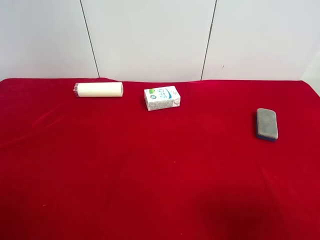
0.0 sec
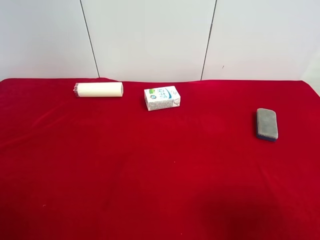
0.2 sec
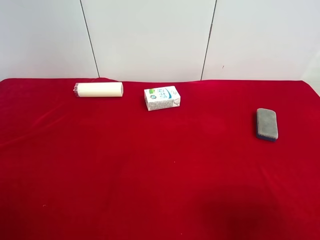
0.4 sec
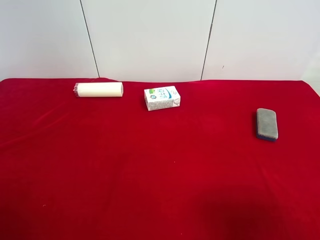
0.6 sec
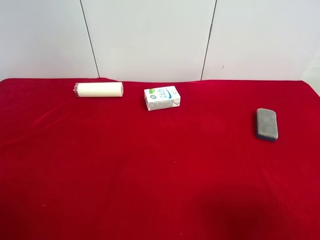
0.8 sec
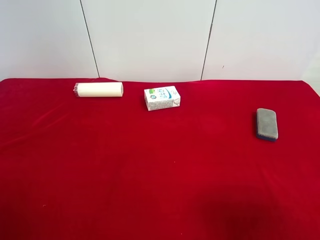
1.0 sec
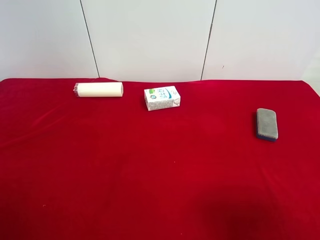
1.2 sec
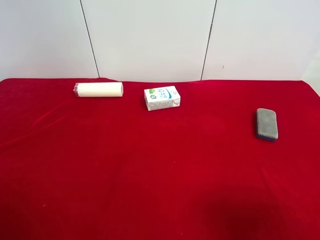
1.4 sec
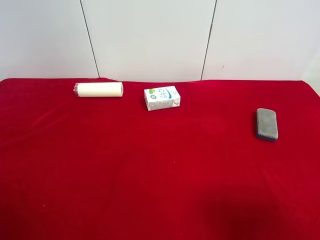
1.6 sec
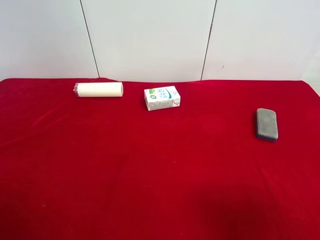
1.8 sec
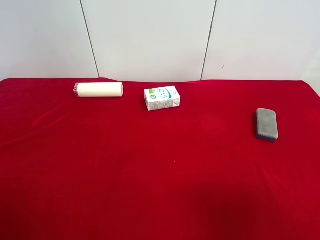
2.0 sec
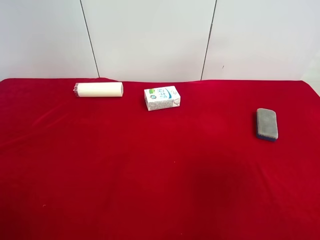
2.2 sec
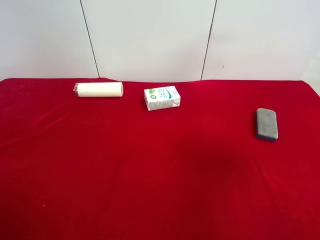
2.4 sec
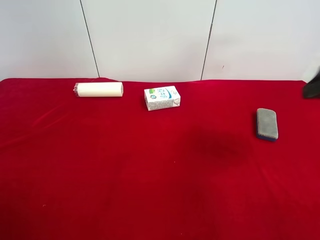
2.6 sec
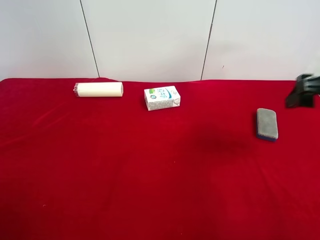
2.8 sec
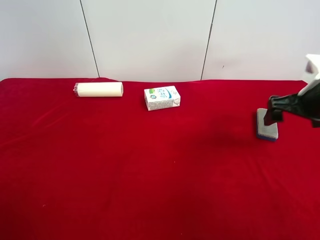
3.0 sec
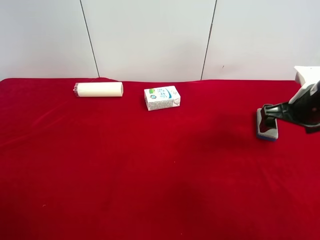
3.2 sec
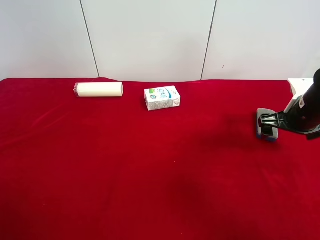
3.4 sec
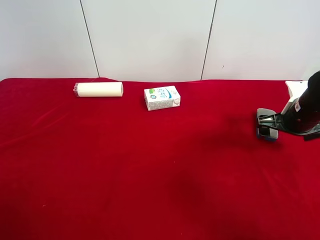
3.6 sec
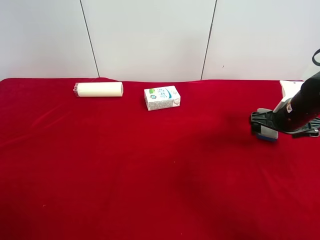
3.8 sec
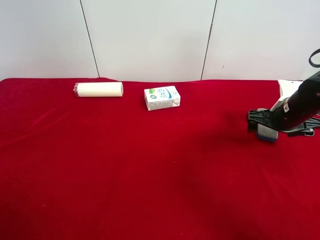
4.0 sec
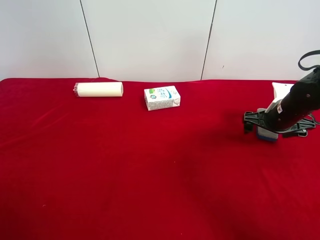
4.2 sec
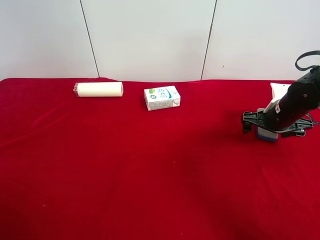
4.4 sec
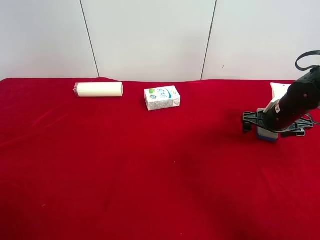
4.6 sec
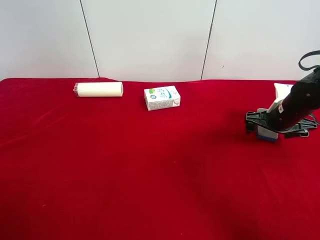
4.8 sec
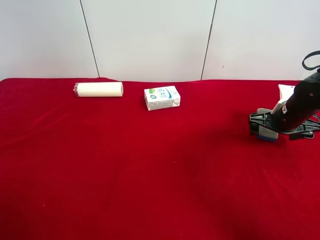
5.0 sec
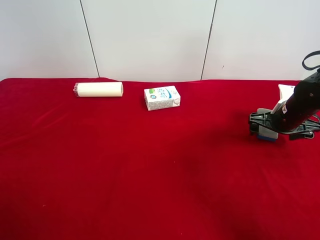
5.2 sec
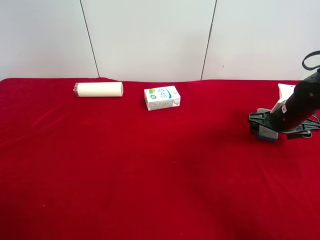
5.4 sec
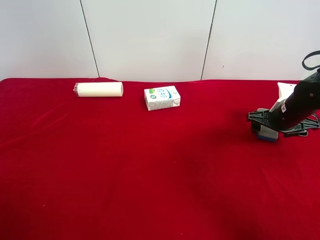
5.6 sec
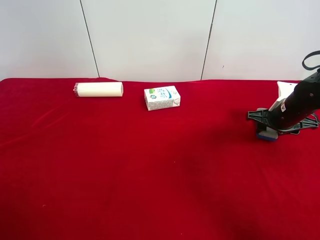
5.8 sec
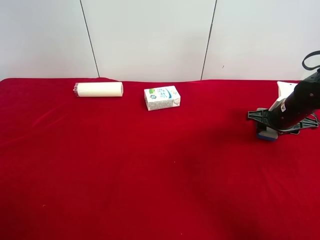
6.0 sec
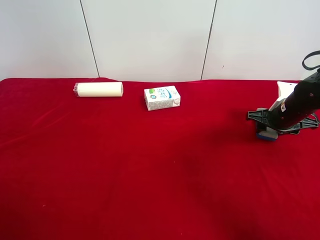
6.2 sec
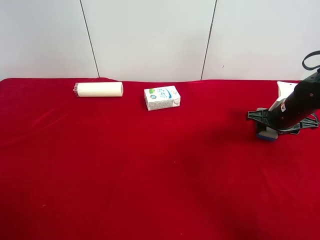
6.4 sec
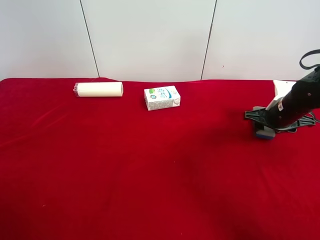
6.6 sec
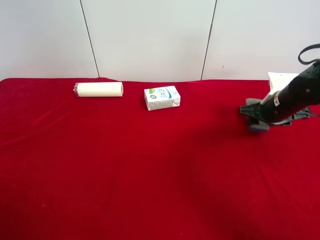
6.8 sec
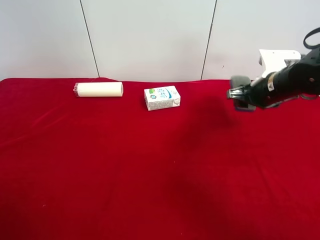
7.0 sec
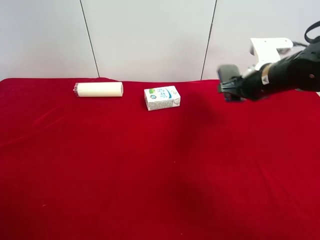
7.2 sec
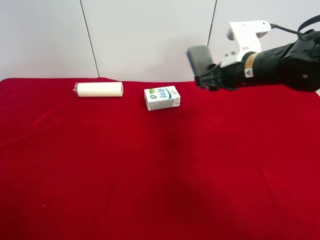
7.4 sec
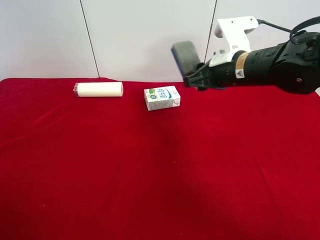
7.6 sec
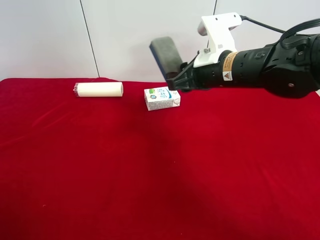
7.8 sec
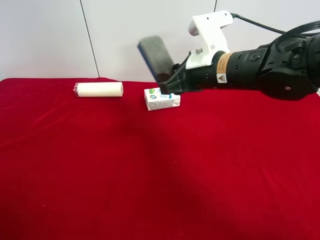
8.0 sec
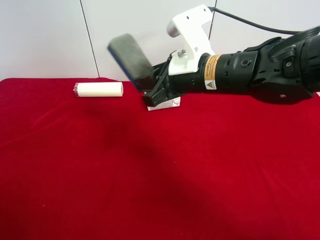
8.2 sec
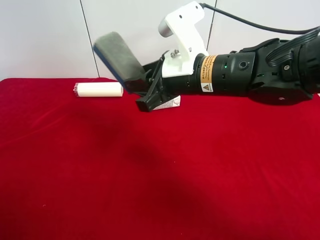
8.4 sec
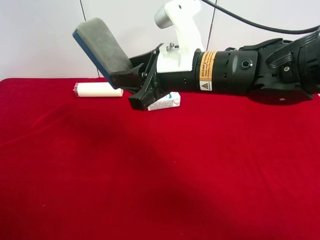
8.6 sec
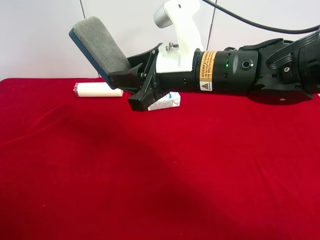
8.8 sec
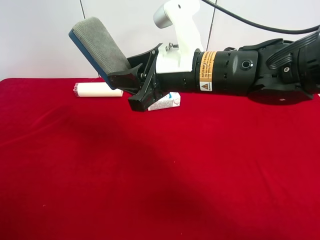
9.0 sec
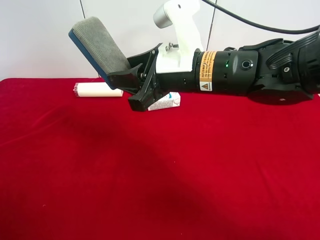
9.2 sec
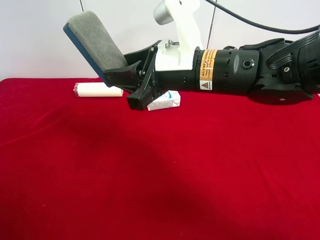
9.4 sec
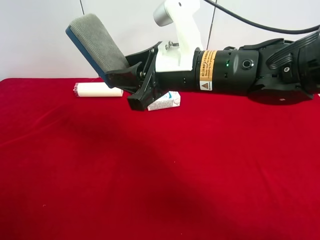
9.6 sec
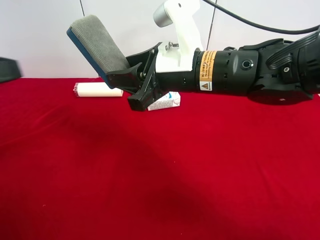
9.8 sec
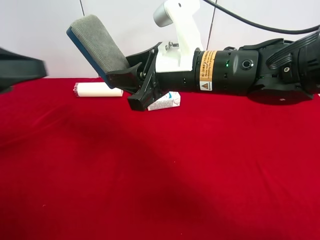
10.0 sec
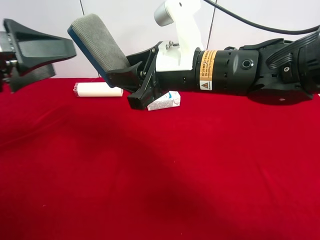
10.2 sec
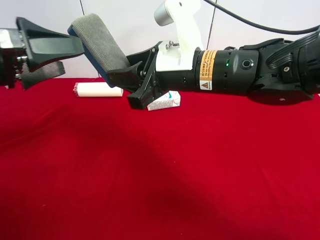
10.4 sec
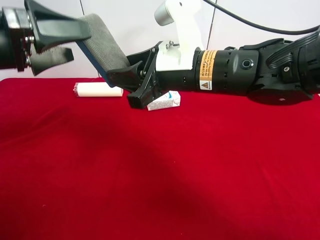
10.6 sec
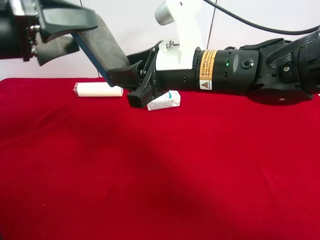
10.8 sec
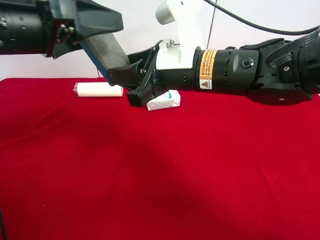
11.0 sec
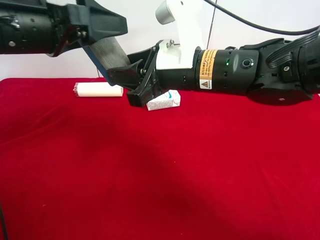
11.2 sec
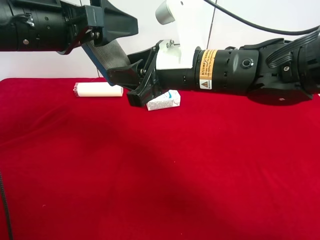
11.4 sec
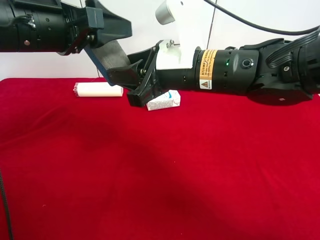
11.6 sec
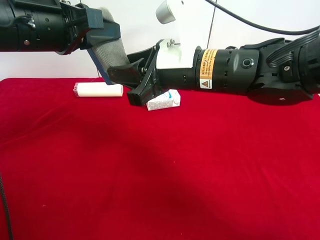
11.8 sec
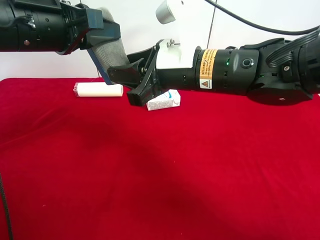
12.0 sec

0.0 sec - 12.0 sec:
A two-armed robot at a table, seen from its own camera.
Task of the whole recording: use the right gripper to pick up the item and transfer it from the right gripper to the left gripper.
Step, 0.0 sec - 5.8 sec: Use the right gripper to grab the blue blackboard erasure on the right side of the table.
0.0 sec - 1.6 sec: Neither gripper changes place.
1.6 sec - 3.0 sec: The right gripper travels forward by roughly 25 cm.
3.0 sec - 4.4 sec: The right gripper travels downward and forward by some 10 cm.
4.4 sec - 6.0 sec: The right gripper closes its fingers.
6.0 sec - 7.6 sec: The right gripper is displaced to the left and upward by approximately 20 cm.
7.6 sec - 9.0 sec: The right gripper is displaced to the left and backward by some 10 cm.
9.0 sec - 10.4 sec: The left gripper moves forward, about 20 cm.
10.4 sec - 12.0 sec: The left gripper travels to the right by roughly 5 cm, and closes its fingers.

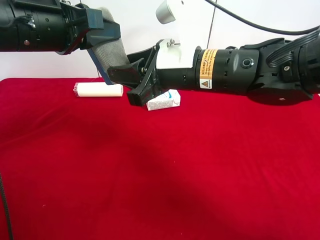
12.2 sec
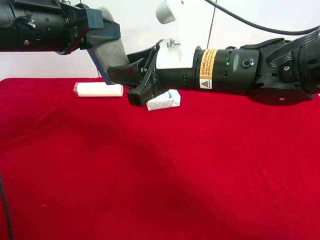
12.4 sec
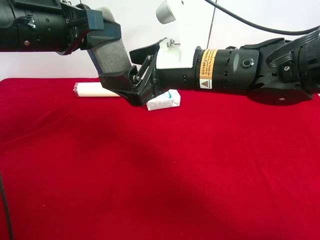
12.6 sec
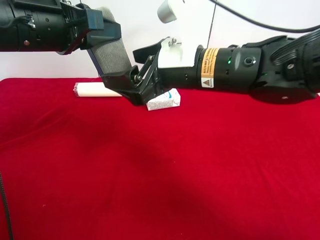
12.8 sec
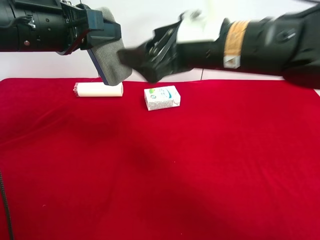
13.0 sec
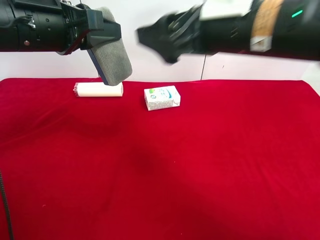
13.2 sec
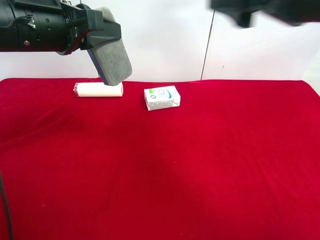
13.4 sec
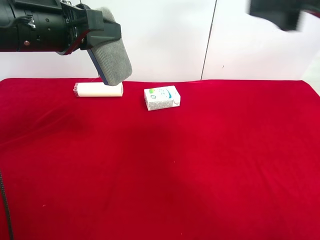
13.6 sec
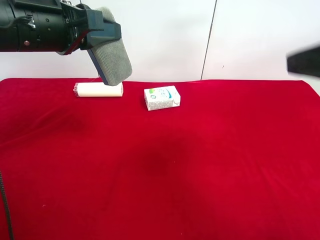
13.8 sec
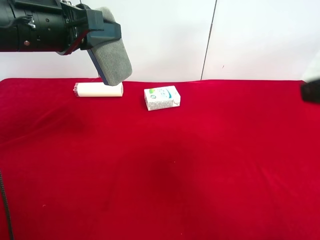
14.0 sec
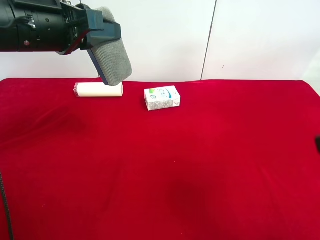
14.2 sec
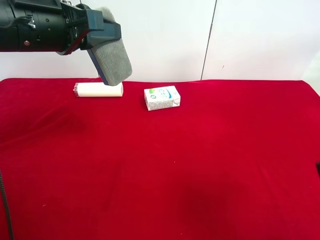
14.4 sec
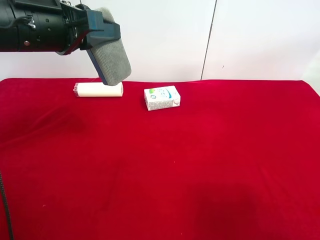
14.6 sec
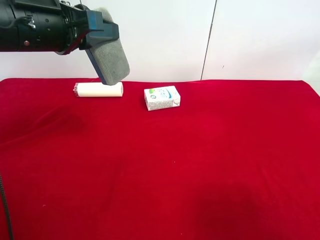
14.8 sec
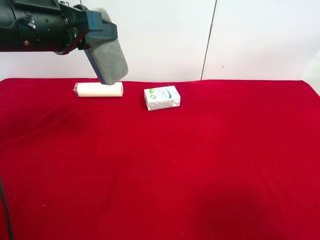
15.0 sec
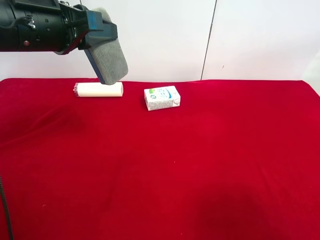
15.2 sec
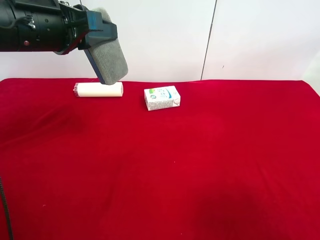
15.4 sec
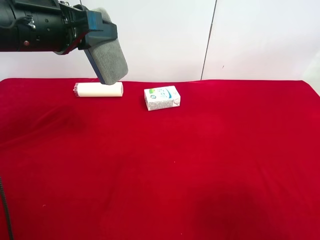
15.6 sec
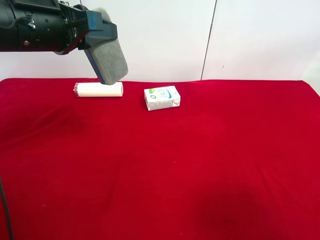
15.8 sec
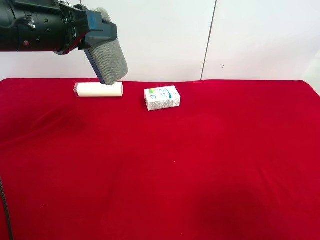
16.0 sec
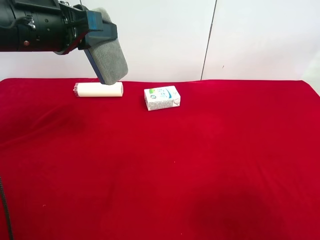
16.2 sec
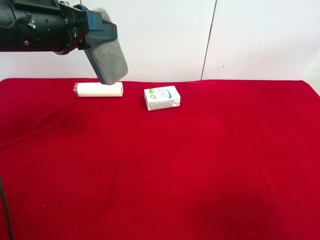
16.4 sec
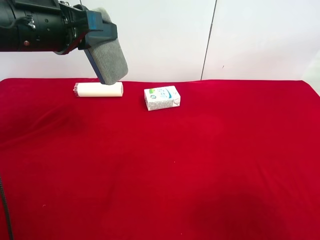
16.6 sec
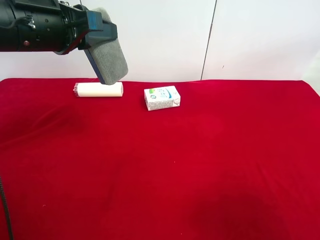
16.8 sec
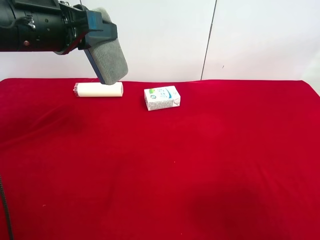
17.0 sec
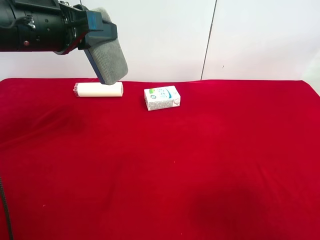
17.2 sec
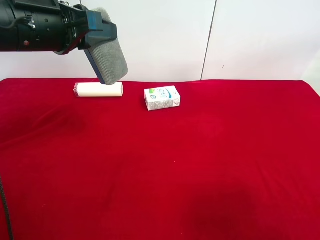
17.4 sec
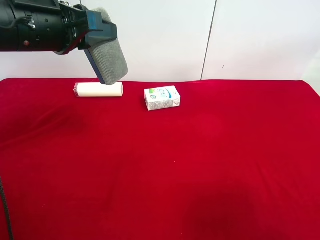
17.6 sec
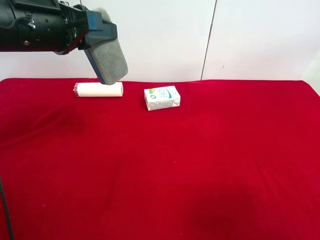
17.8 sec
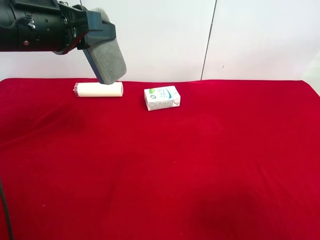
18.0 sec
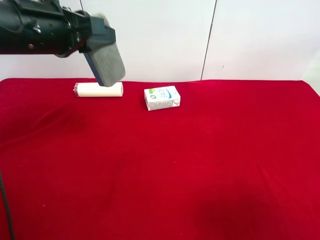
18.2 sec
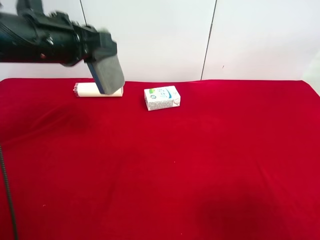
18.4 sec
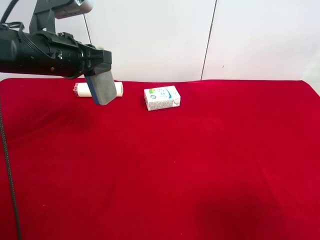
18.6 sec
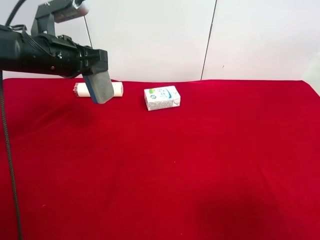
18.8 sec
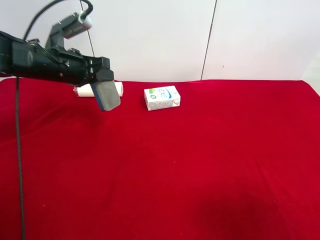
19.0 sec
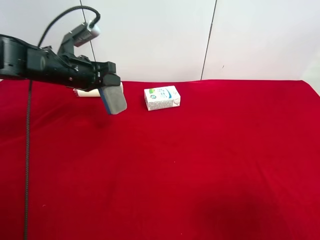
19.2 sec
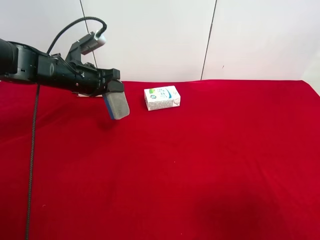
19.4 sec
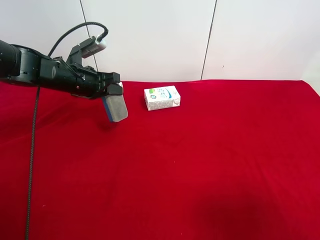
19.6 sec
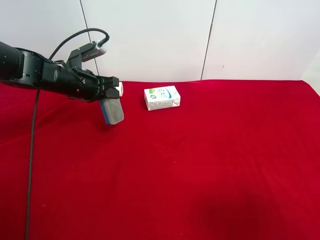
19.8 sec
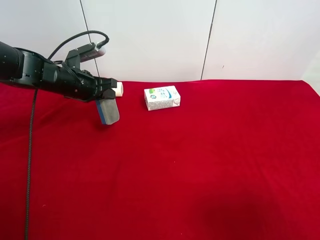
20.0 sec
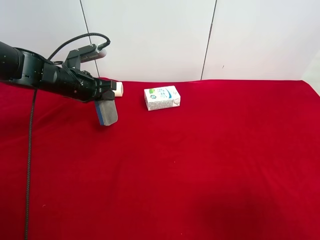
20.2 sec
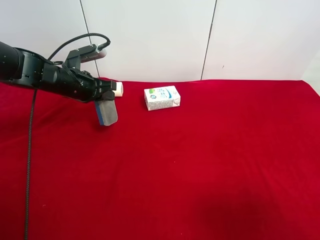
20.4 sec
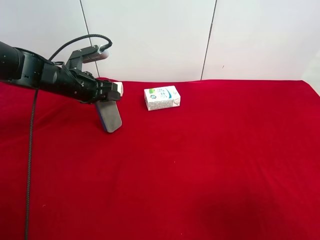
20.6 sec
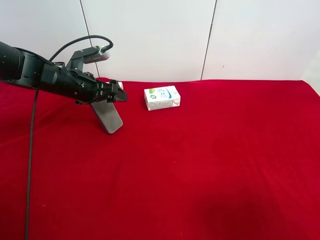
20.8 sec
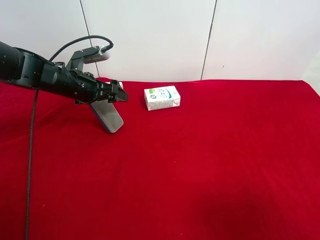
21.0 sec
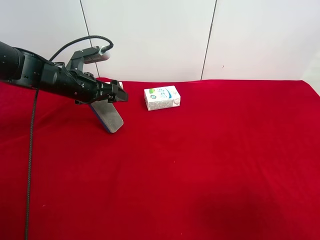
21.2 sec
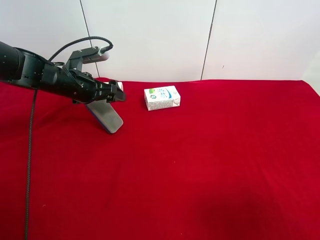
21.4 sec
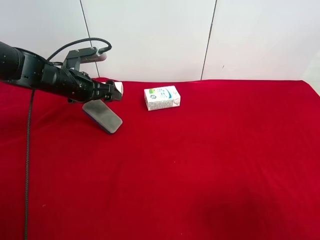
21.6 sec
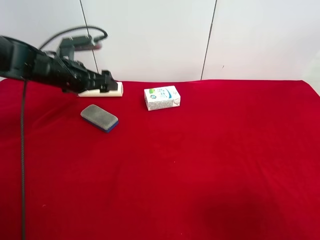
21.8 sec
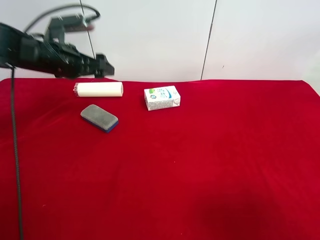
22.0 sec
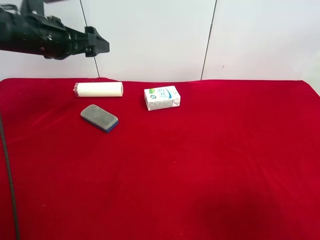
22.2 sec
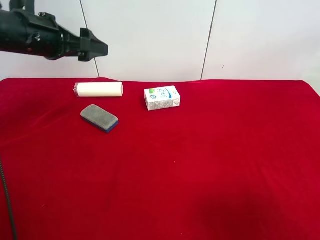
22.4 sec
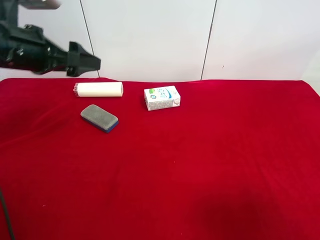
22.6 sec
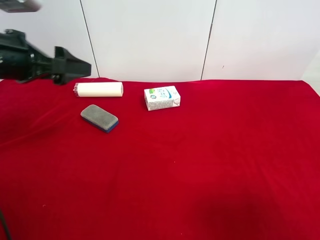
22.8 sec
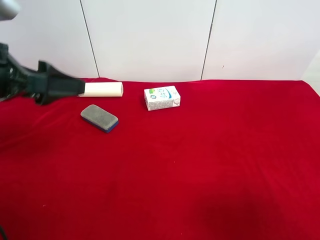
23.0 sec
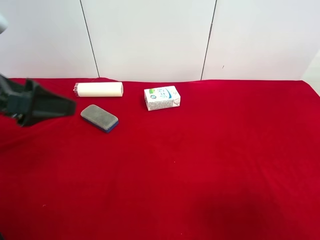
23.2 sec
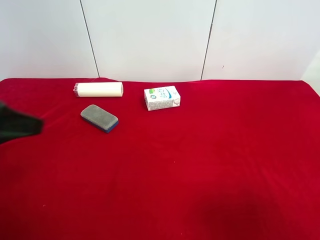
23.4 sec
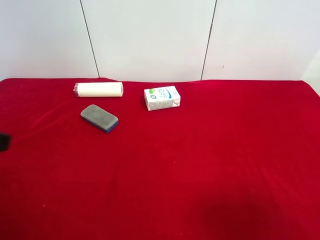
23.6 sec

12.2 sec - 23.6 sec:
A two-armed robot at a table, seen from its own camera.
Task of the whole recording: use the right gripper to pick up the item and transfer it from the right gripper to the left gripper.
Step, 12.8 sec - 21.8 sec: The left gripper places blue blackboard erasure on the left side of the table.
12.2 sec - 13.6 sec: The right gripper is displaced to the right, upward and backward by approximately 20 cm, and opens its fingers.
13.6 sec - 15.0 sec: The right gripper moves backward, downward and to the right, some 20 cm.
17.8 sec - 19.4 sec: The left gripper travels downward and forward by about 20 cm.
19.4 sec - 20.8 sec: The left gripper opens its fingers.
20.8 sec - 22.2 sec: The left gripper is displaced upward by approximately 10 cm.
22.2 sec - 23.6 sec: The left gripper moves backward, some 25 cm.
